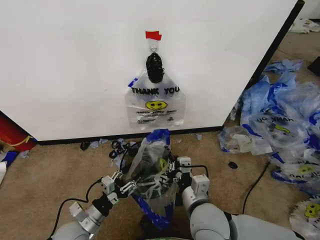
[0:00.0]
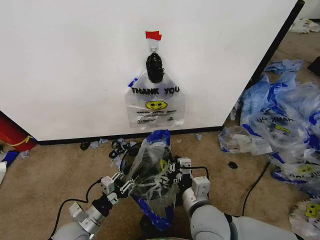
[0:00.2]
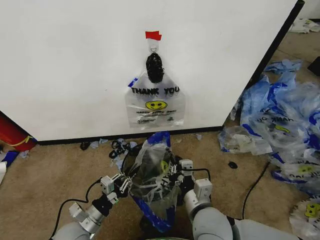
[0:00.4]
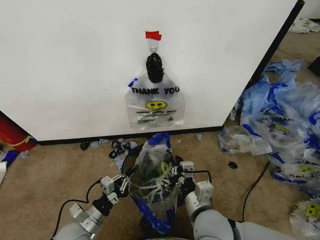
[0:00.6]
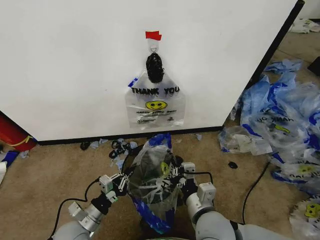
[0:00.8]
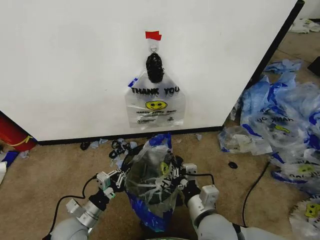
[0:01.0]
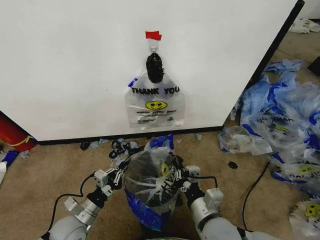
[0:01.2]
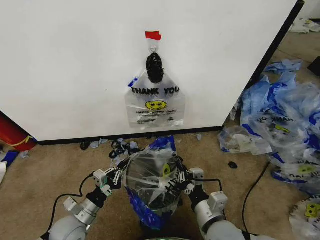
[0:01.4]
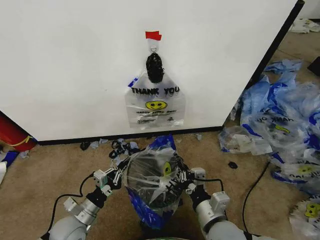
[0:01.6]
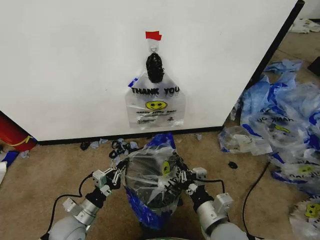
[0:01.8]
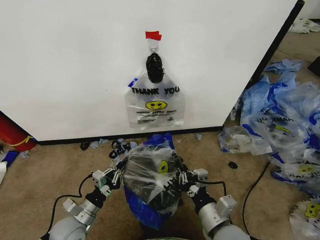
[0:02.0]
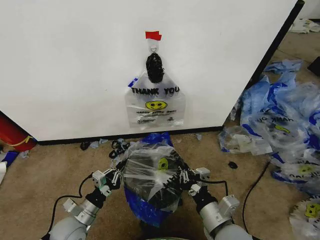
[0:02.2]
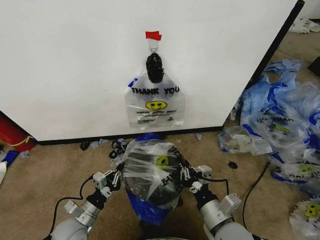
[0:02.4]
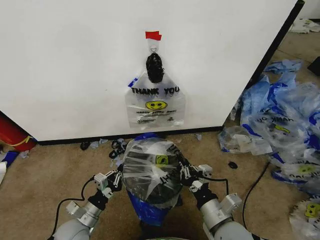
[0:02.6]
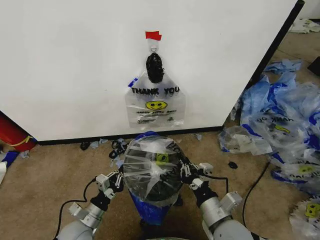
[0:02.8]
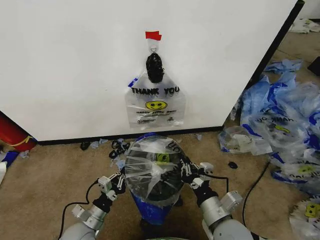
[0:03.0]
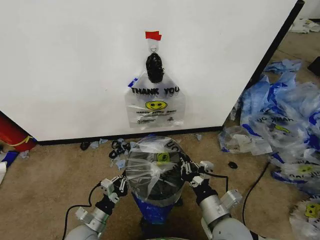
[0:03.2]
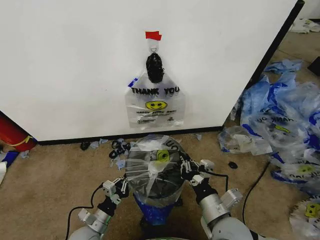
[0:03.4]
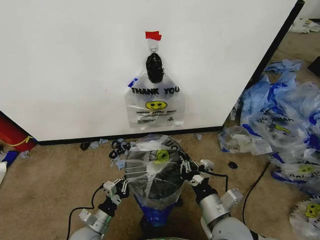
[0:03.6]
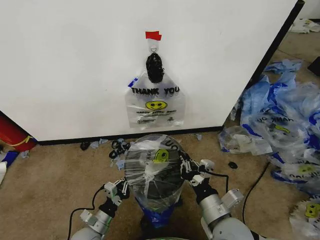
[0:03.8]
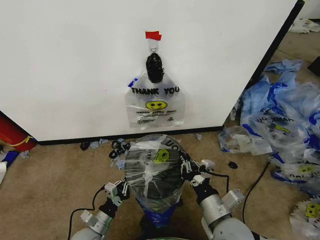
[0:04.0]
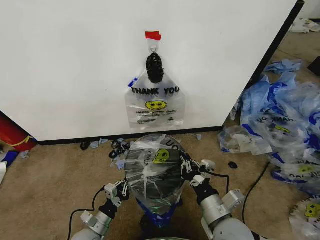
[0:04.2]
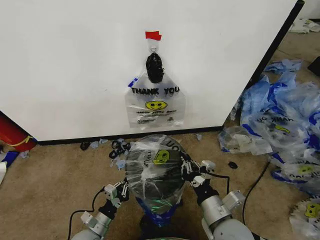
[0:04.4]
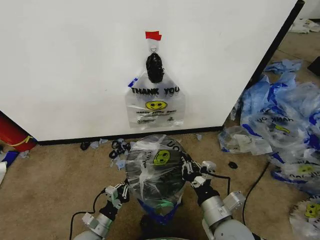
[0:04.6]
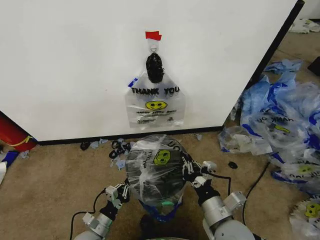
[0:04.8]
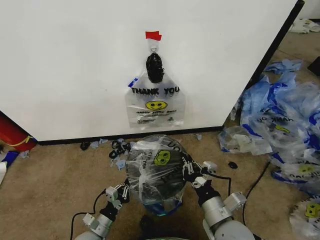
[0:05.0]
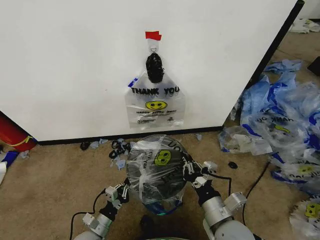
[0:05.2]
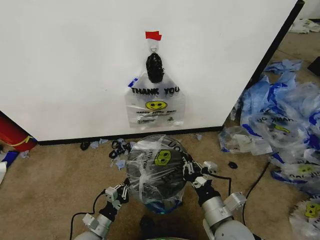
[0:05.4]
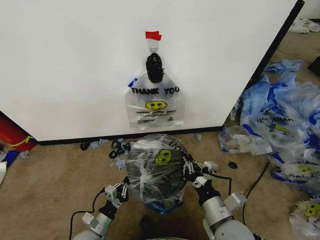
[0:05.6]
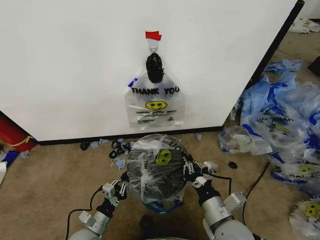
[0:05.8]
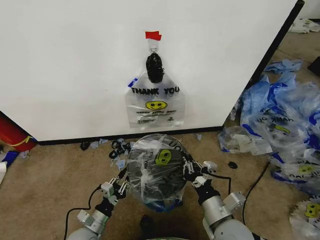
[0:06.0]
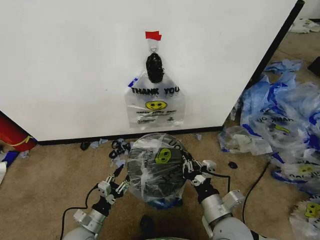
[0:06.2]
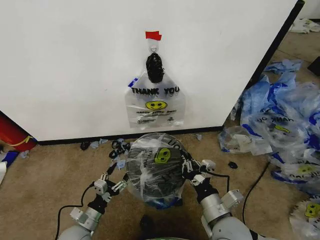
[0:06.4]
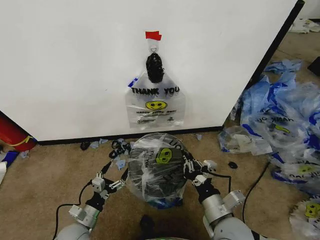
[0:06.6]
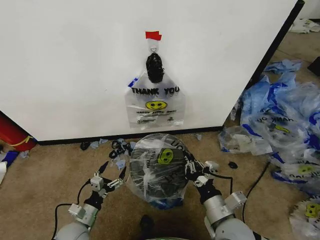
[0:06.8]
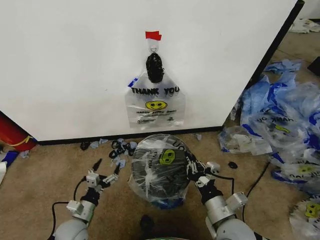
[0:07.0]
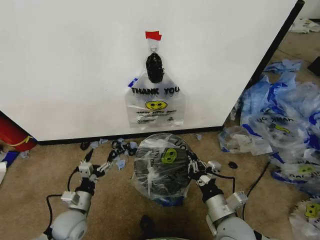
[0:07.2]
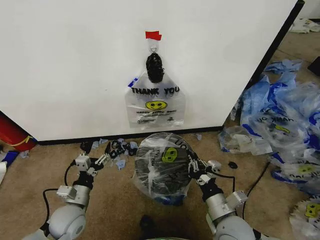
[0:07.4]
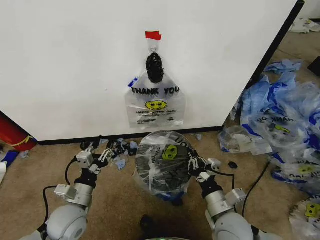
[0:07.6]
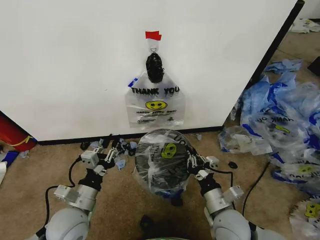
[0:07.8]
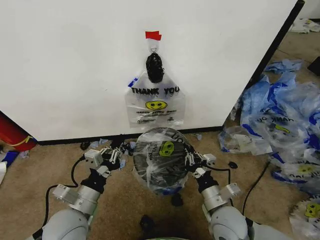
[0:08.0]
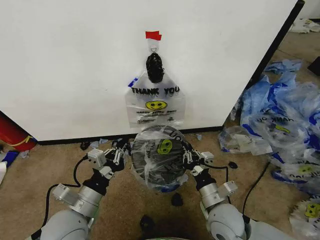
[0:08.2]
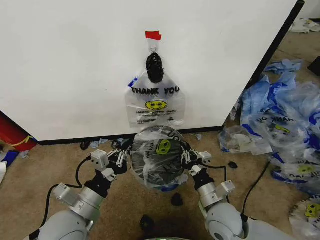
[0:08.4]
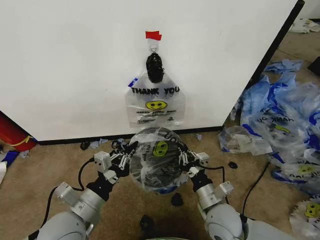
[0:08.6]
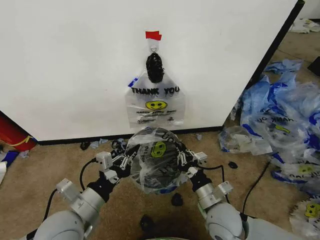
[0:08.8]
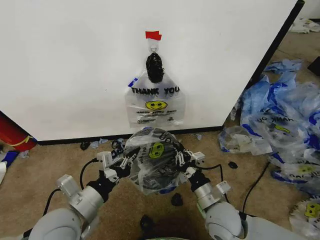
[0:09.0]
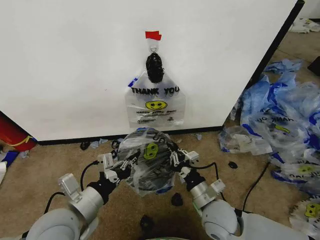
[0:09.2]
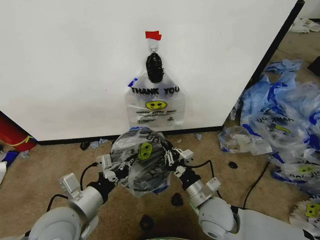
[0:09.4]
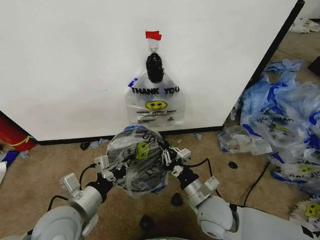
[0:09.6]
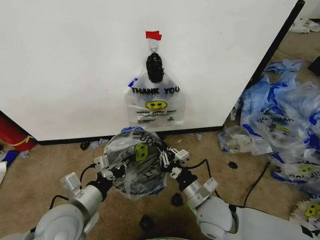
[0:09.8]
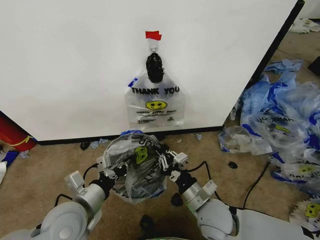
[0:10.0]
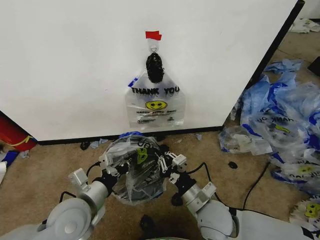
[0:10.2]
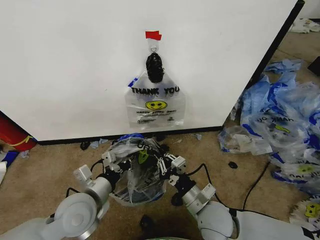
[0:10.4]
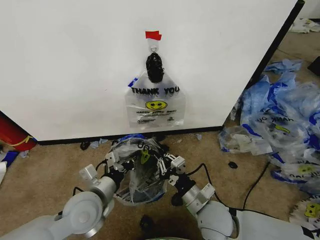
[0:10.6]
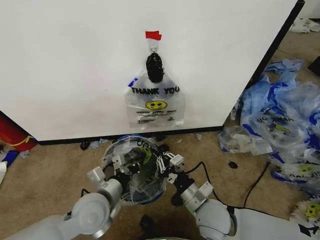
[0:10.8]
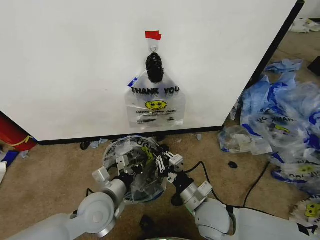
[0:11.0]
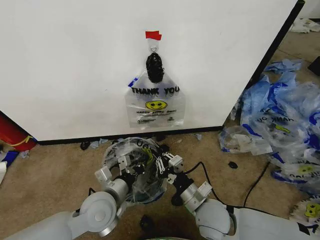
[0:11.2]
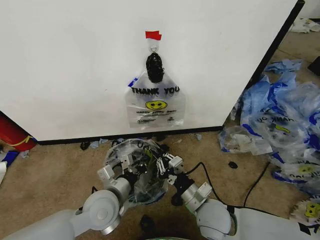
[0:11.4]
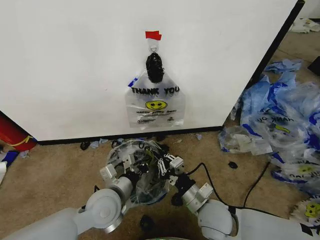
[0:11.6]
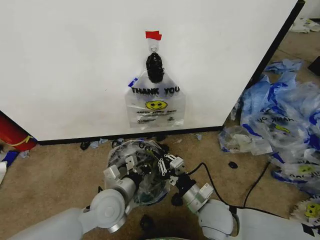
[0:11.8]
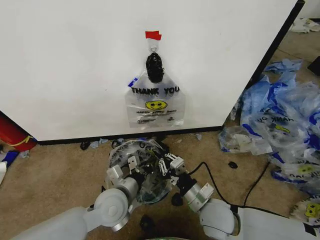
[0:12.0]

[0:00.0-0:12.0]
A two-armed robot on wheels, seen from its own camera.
Task of the whole recording: Pick up the garbage bag from the wall and place it over the trash bin.
0:00.0 to 0:01.6: The left gripper closes its fingers; the right gripper changes place by roughly 5 cm.
0:01.6 to 0:03.0: The grippers move only a little.
0:03.0 to 0:04.4: The grippers move only a little.
0:04.4 to 0:06.0: The grippers make only small movements.
0:06.0 to 0:07.6: The left gripper moves upward, about 15 cm, and opens, then closes once more.
0:07.6 to 0:09.0: The left gripper travels upward by approximately 10 cm, and closes up.
0:09.0 to 0:10.4: The left gripper changes place by about 5 cm.
0:10.4 to 0:12.0: The left gripper shifts roughly 5 cm to the right.

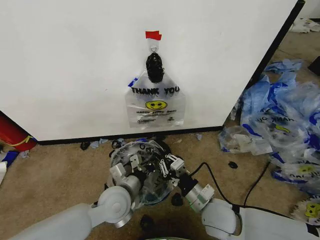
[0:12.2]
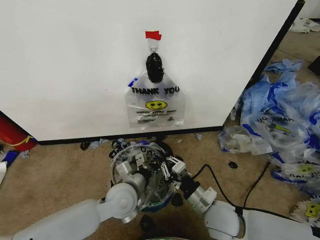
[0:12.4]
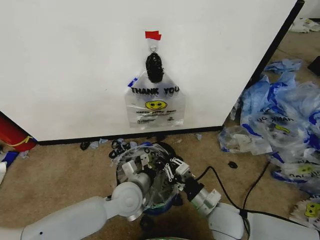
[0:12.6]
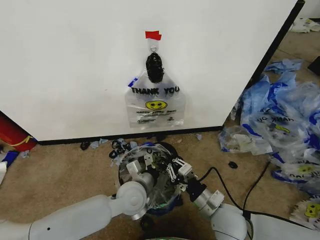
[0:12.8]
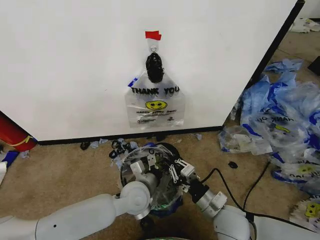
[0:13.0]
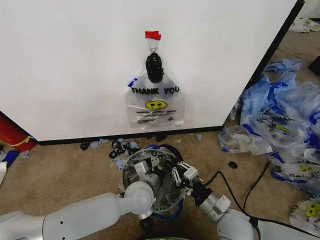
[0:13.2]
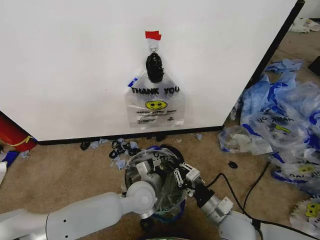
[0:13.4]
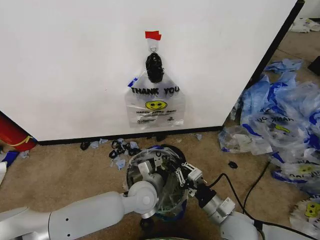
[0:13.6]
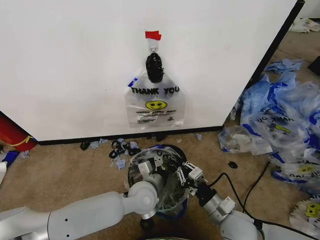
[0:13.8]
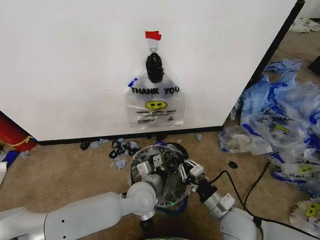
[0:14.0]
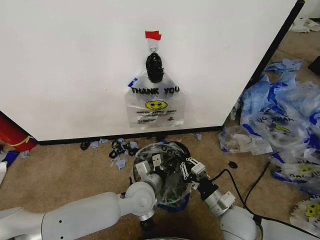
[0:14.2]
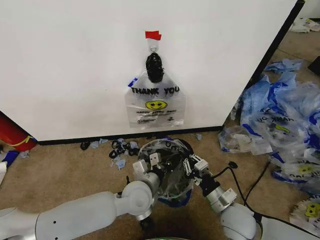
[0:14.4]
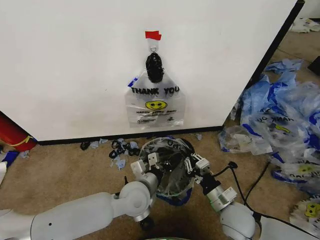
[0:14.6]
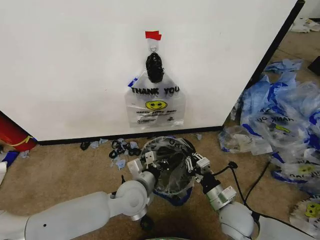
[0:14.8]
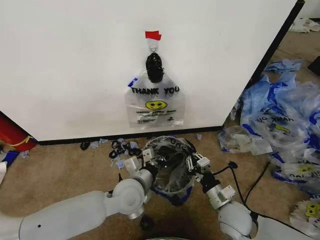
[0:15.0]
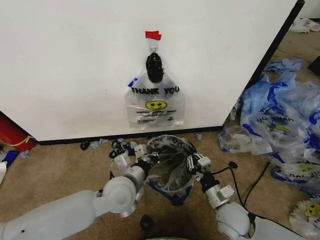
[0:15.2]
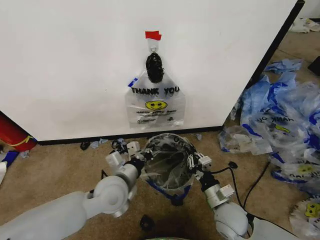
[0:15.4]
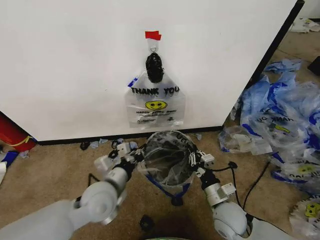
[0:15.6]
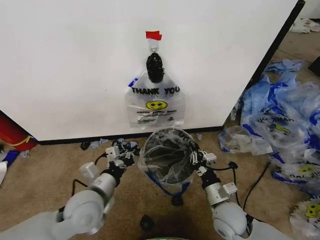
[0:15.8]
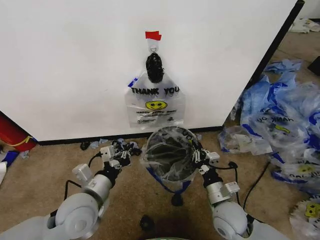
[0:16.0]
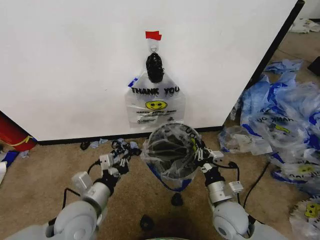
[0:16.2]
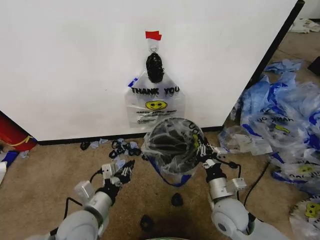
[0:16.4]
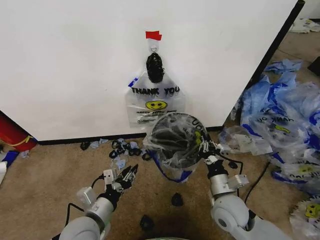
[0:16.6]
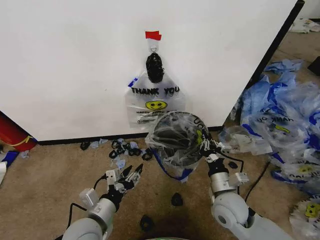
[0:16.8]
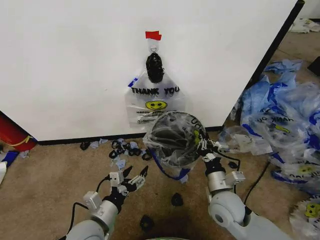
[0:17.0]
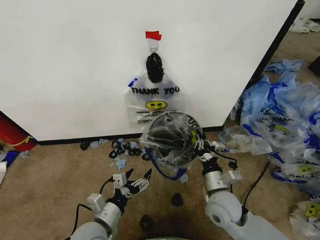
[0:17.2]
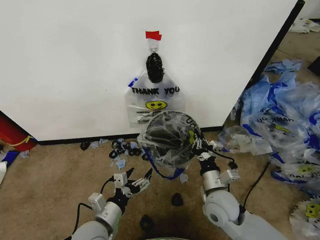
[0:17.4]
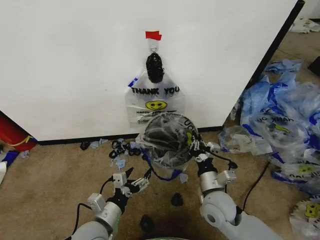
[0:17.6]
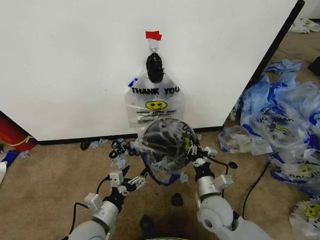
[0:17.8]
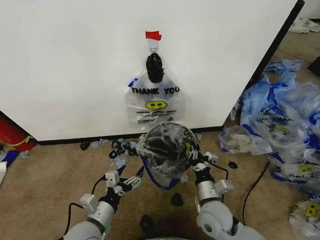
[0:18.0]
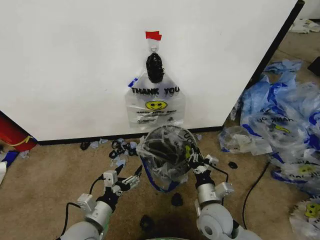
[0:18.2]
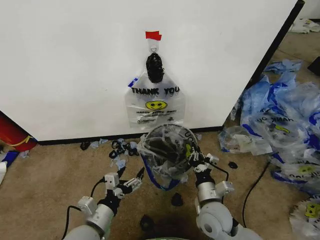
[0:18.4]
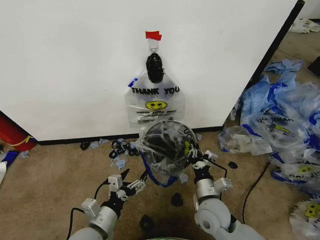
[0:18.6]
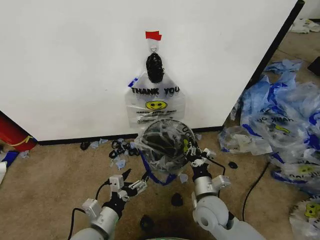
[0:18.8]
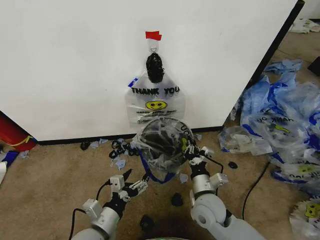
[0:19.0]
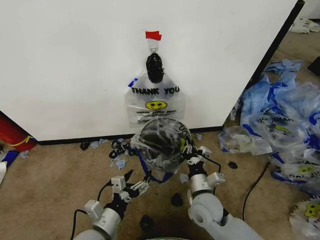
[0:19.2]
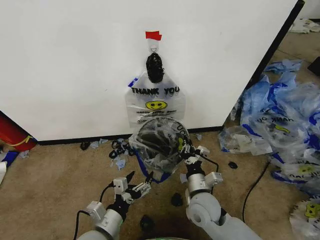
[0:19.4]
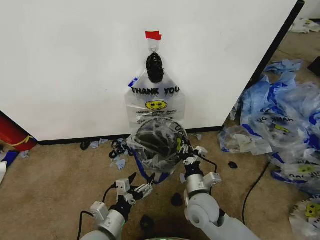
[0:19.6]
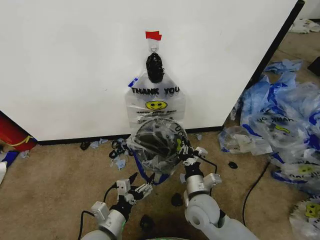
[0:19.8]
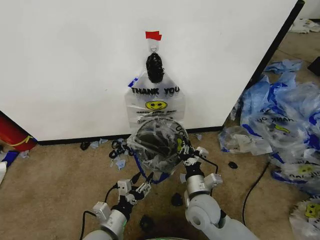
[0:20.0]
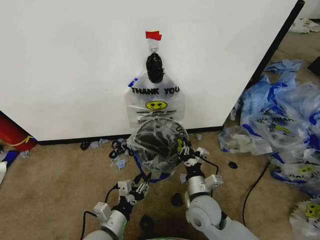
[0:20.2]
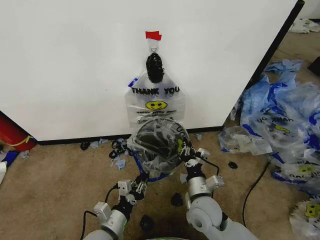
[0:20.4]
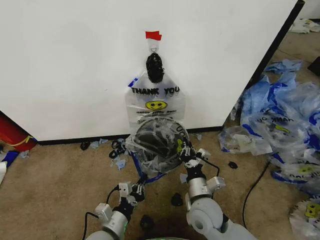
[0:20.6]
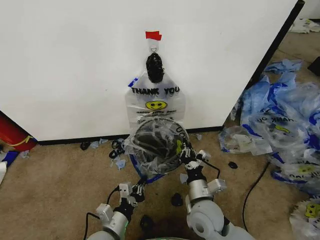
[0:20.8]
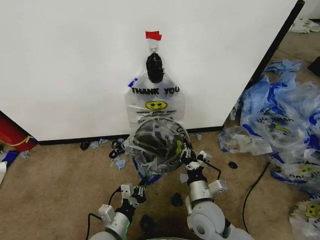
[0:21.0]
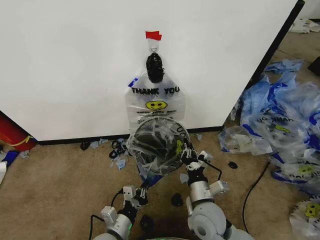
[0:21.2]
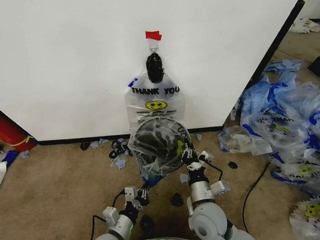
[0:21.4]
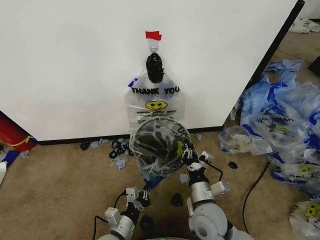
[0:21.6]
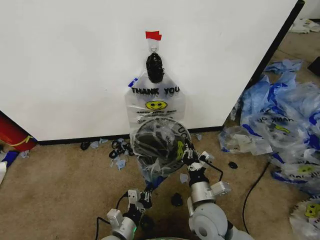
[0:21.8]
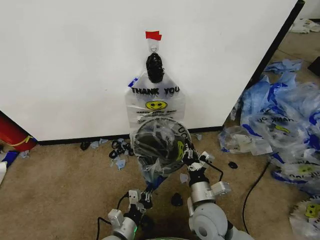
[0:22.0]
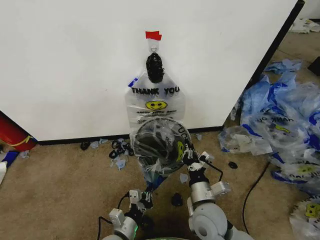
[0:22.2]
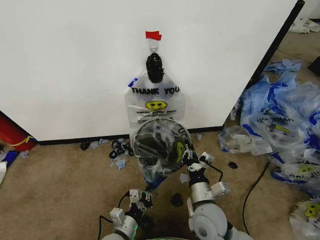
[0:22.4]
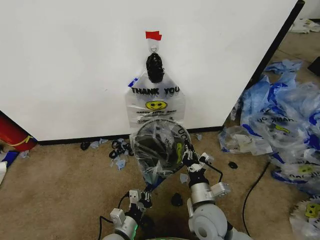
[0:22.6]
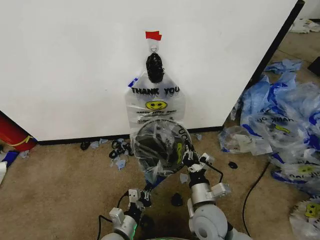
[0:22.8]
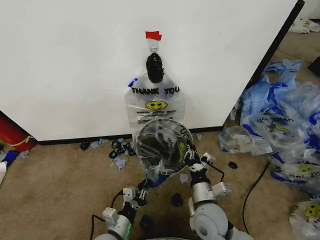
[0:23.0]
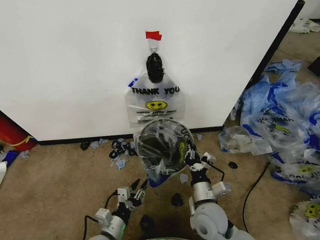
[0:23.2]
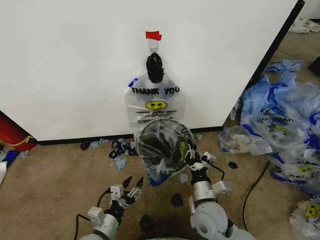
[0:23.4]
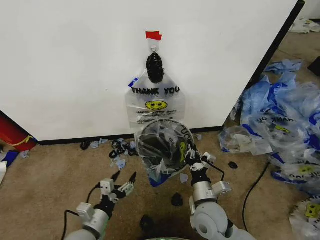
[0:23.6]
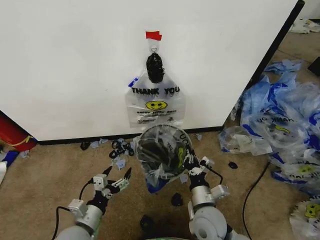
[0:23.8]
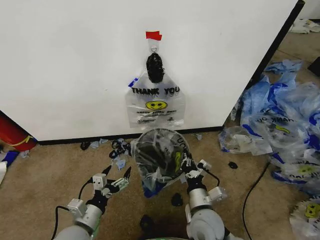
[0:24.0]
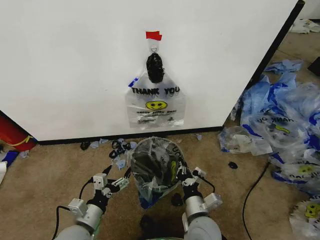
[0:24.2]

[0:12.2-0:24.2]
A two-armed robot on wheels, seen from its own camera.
Task of the whole recording: Pick up the garbage bag from the wall and place it over the trash bin.
0:12.2 to 0:13.8: The left gripper travels to the right by roughly 10 cm, while the right gripper ends up roughly 5 cm from where it was.
0:13.8 to 0:15.2: The left gripper heads to the left and upward, covering about 10 cm.
0:15.2 to 0:16.6: The left gripper travels backward and to the left by approximately 15 cm, and opens up.
0:16.6 to 0:18.2: The left gripper opens its fingers. Meanwhile the right gripper ends up about 5 cm from where it was.
0:18.2 to 0:19.8: The grippers make only small movements.
0:19.8 to 0:21.2: The left gripper closes up.
0:21.2 to 0:22.6: The grippers make only small movements.
0:22.6 to 0:24.2: The left gripper is displaced to the left and upward by approximately 10 cm, and opens its fingers.
